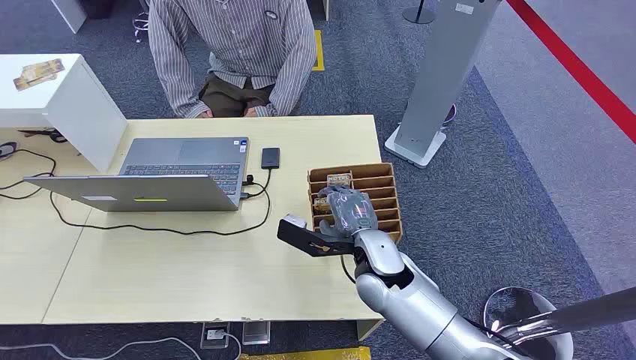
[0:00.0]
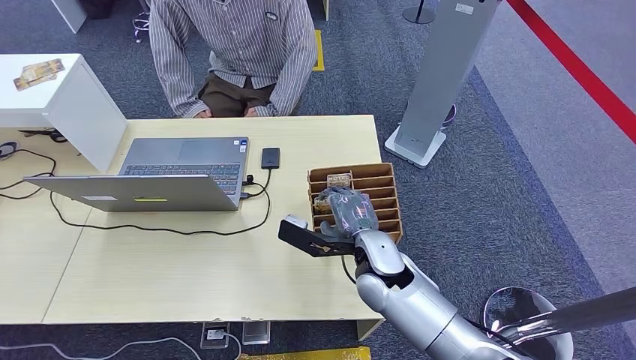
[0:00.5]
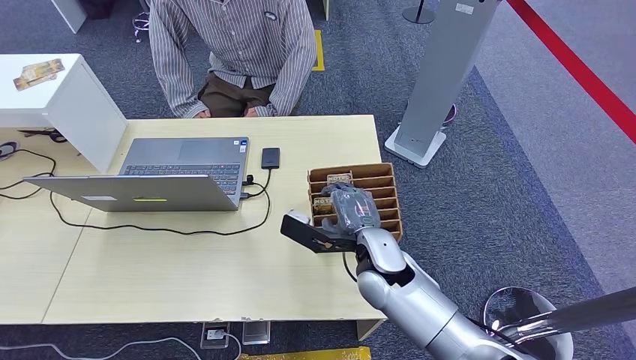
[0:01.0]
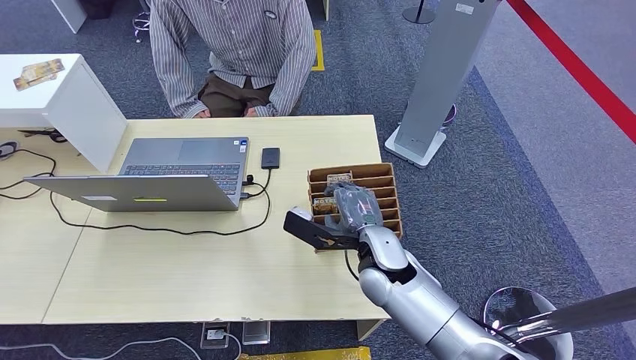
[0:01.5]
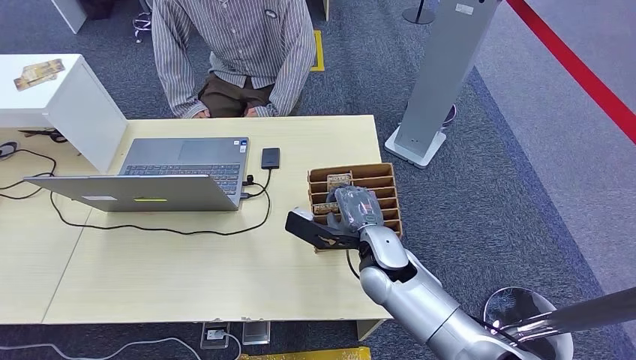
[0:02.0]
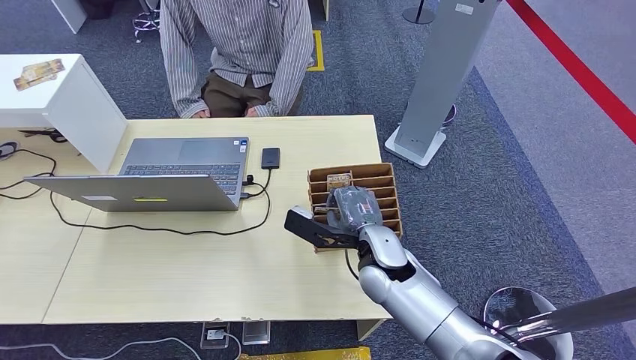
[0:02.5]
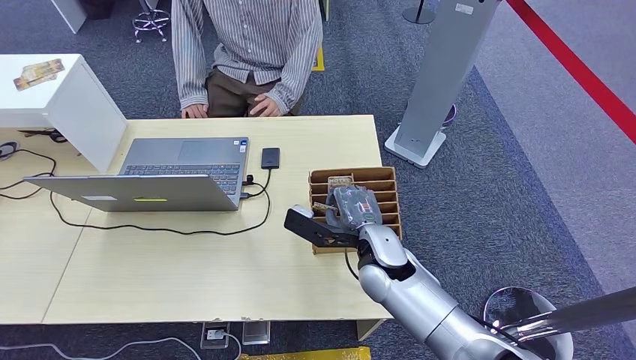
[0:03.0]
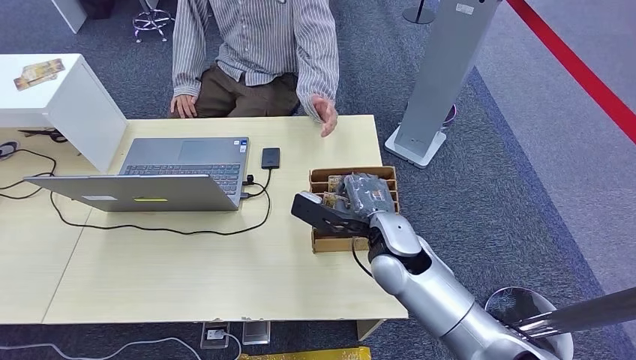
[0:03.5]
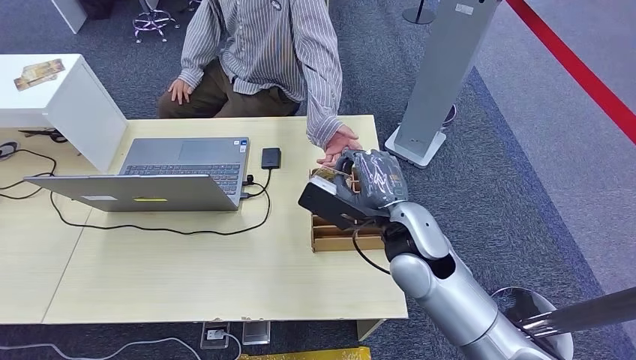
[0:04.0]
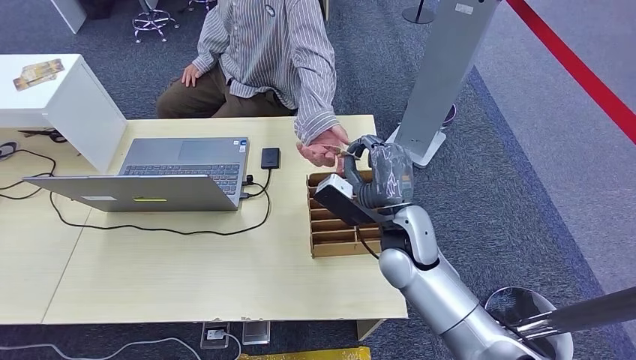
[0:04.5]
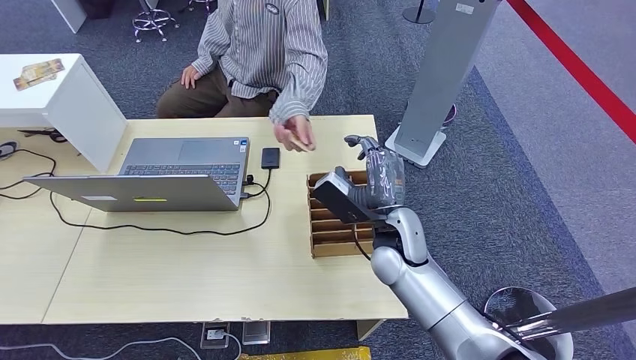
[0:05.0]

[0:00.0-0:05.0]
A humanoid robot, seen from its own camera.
Step, 0:00.0 to 0:03.5: Pick up the key card from the card box.
Step, 0:04.5 to 0:05.0: Hand the key card to the target.
0:02.5 to 0:05.0: The right hand reaches approximately 10 cm upward, then returns.

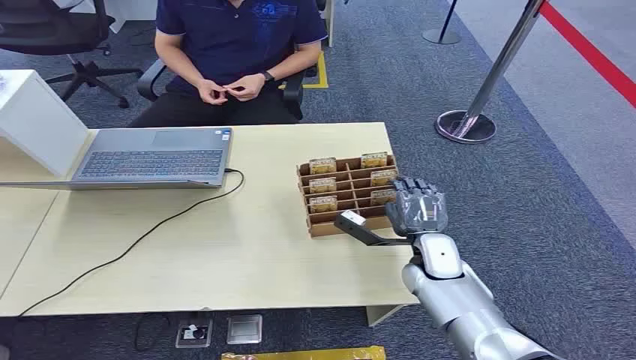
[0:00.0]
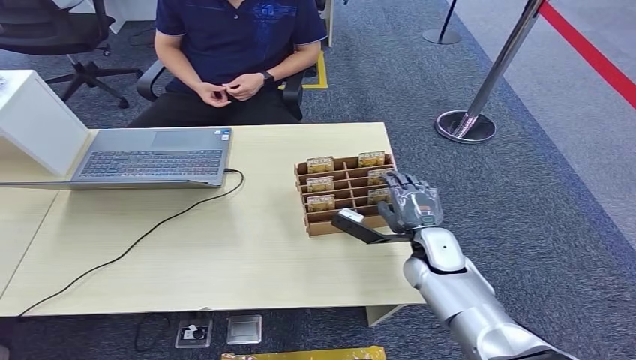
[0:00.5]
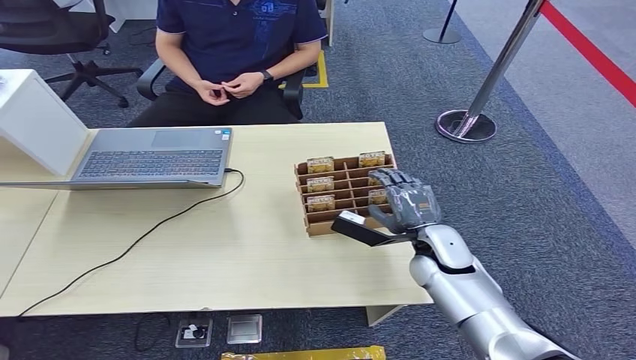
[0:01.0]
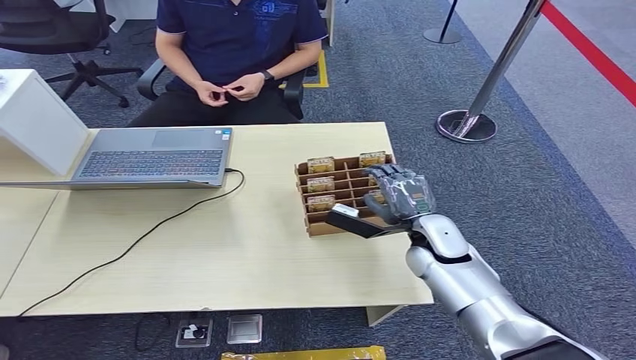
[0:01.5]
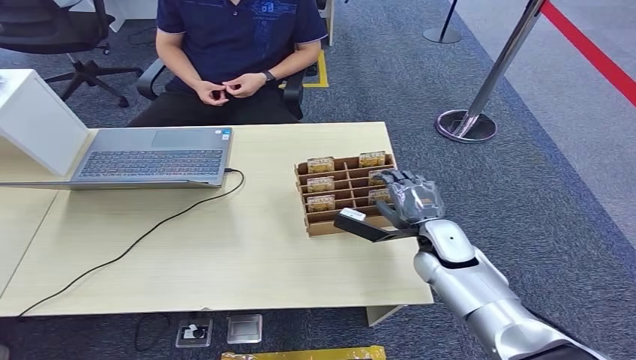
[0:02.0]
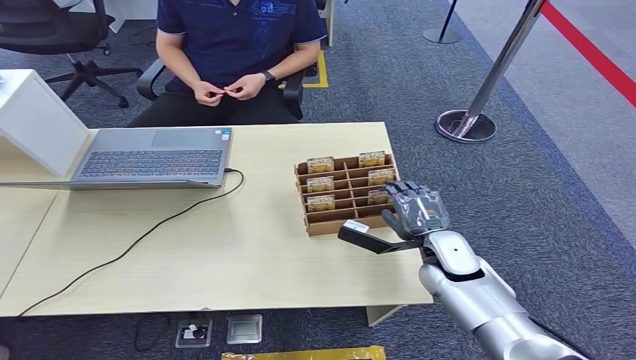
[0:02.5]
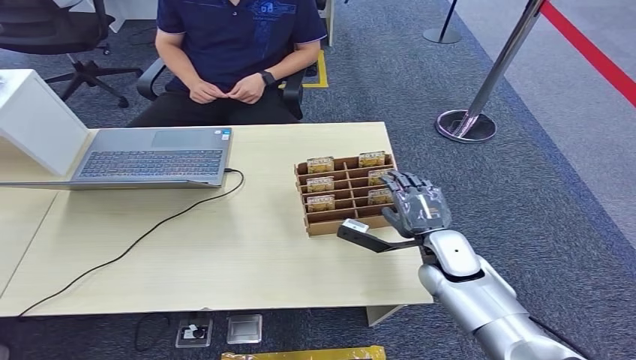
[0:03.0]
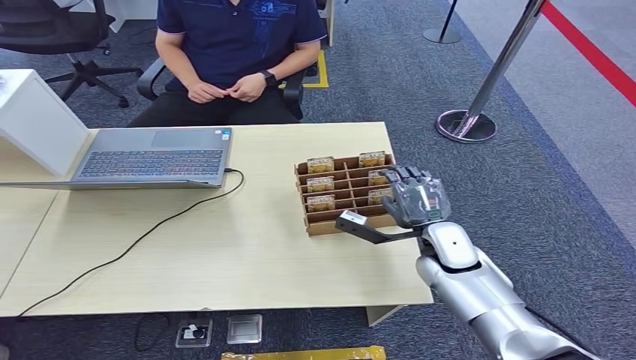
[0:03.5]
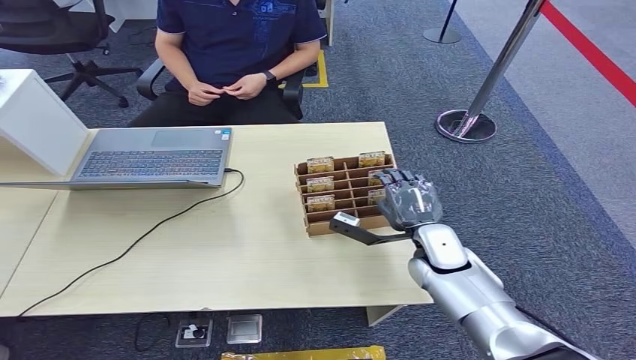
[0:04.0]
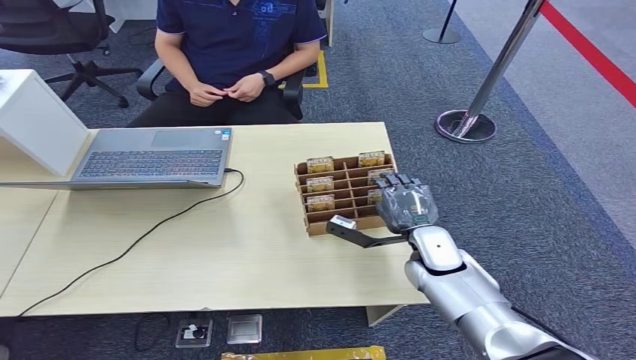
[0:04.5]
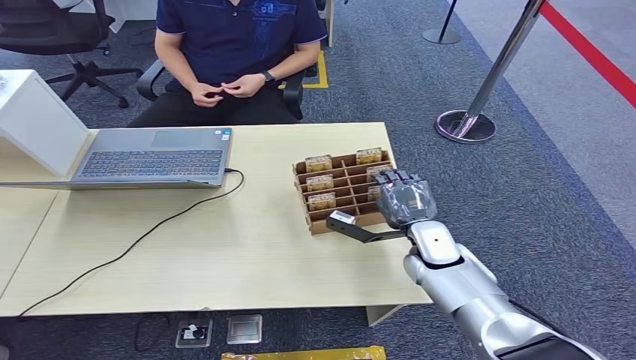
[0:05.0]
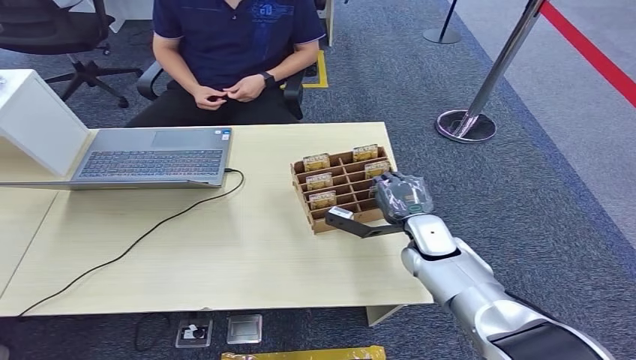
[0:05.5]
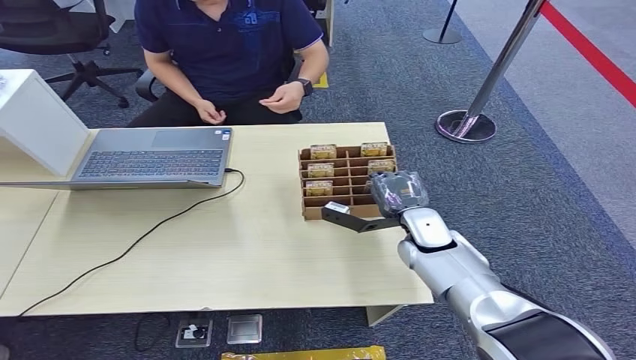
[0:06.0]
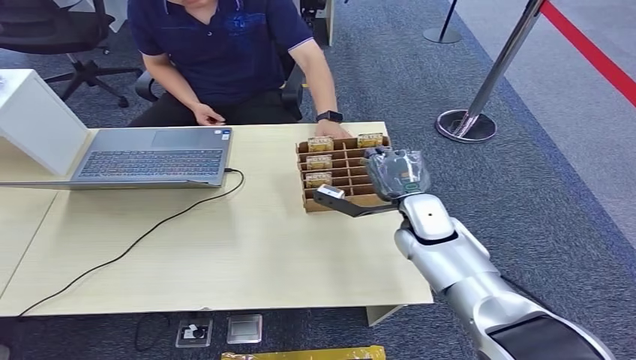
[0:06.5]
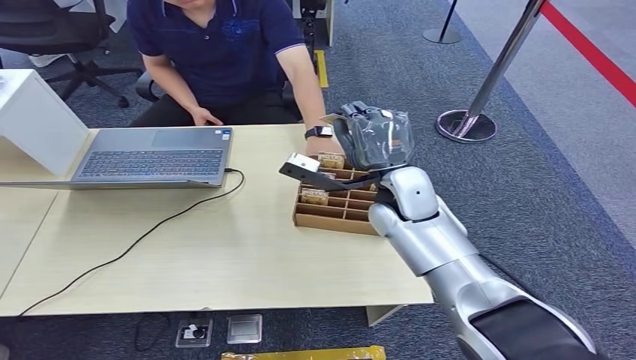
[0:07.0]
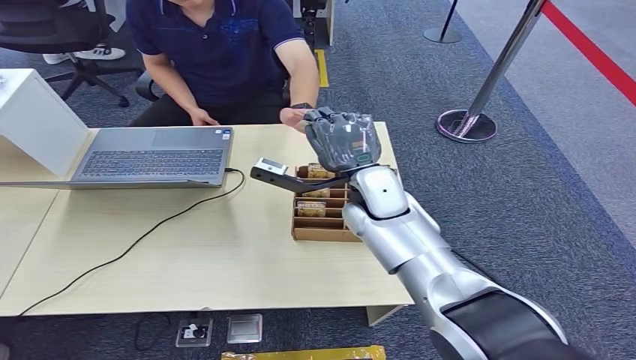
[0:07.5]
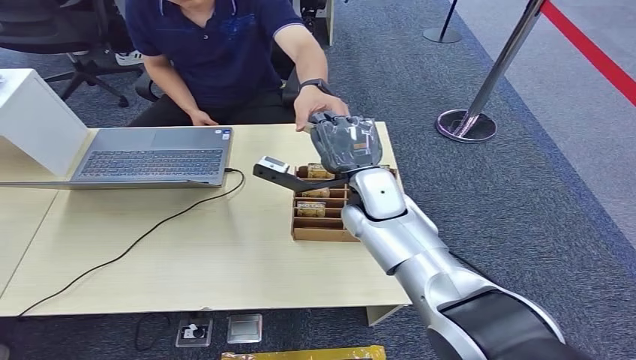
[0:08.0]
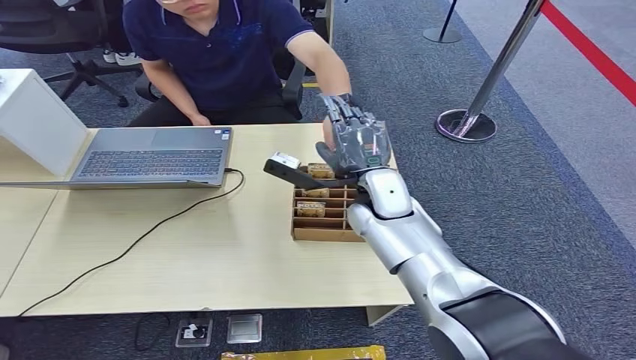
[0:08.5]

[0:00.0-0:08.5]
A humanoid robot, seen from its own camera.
Step, 0:00.0 to 0:07.0: Pick up the key card from the card box.
Step, 0:07.5 to 0:08.5: Hand the key card to the target.
0:02.0 to 0:04.0: There are only small adjustments of the hands.
0:04.0 to 0:06.5: The right hand moves about 5 cm.
0:06.5 to 0:08.5: The right hand moves to the left and upward, roughly 10 cm.
